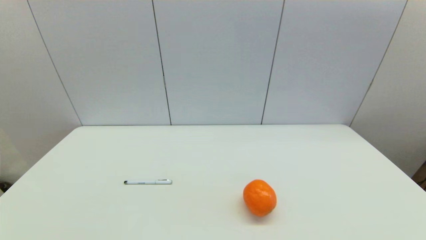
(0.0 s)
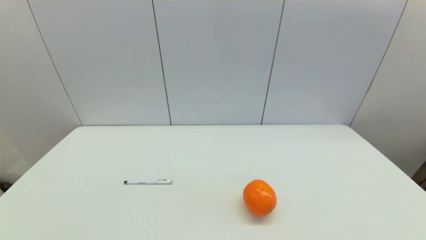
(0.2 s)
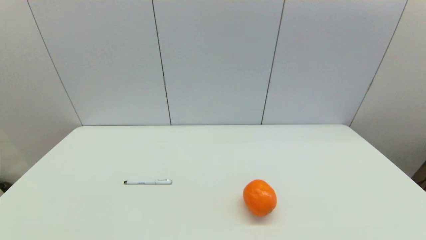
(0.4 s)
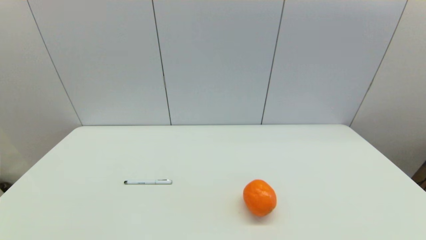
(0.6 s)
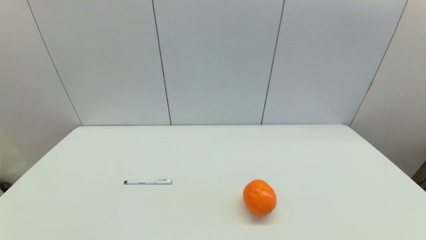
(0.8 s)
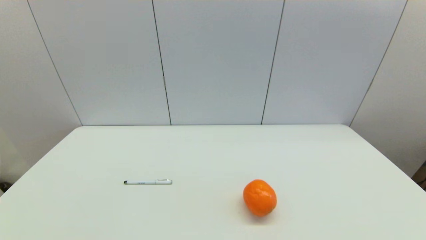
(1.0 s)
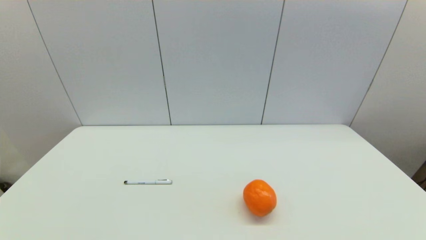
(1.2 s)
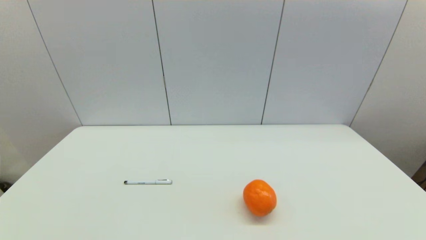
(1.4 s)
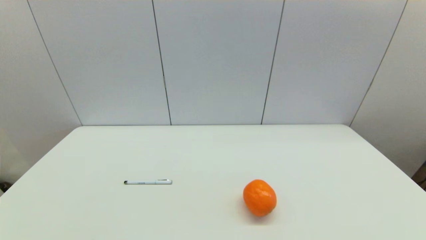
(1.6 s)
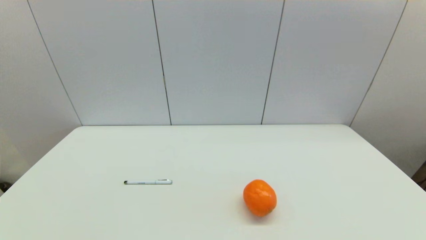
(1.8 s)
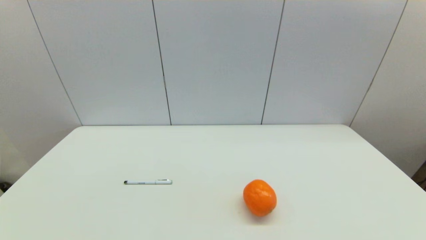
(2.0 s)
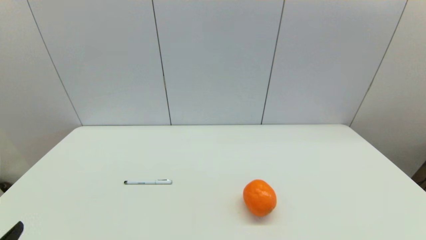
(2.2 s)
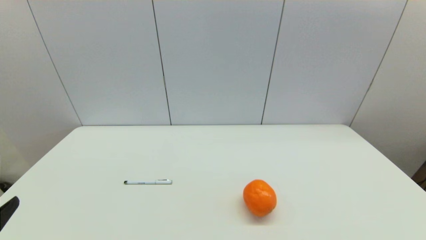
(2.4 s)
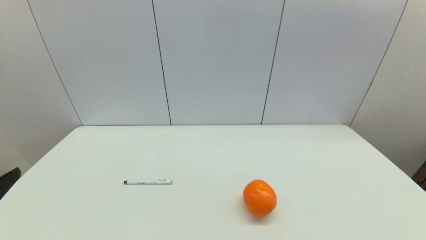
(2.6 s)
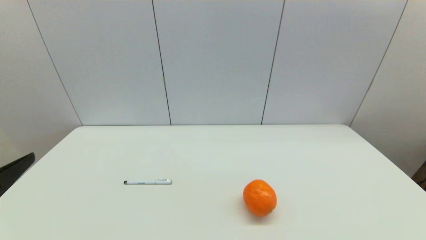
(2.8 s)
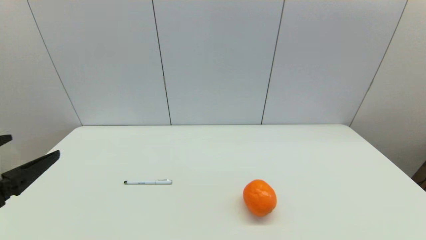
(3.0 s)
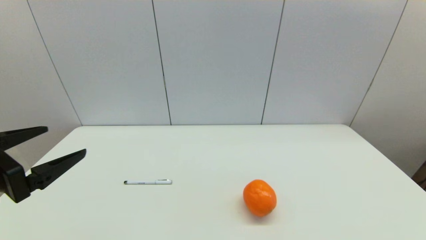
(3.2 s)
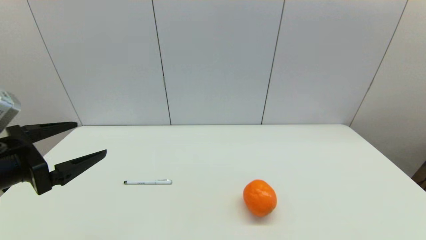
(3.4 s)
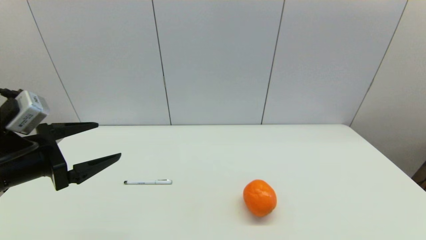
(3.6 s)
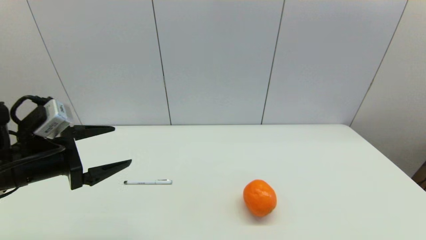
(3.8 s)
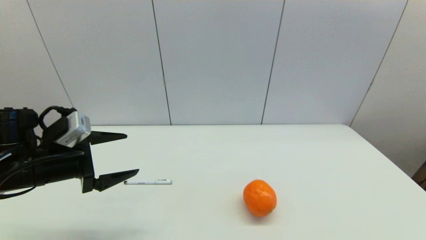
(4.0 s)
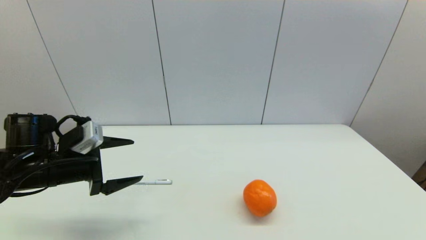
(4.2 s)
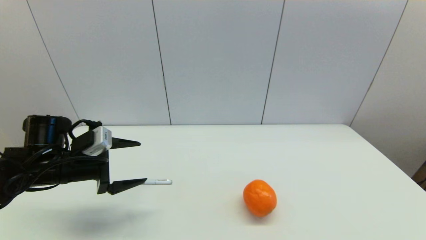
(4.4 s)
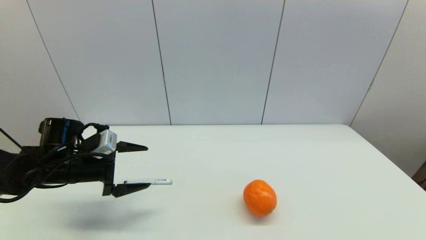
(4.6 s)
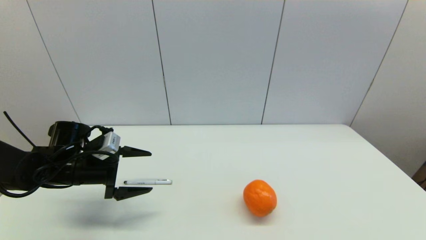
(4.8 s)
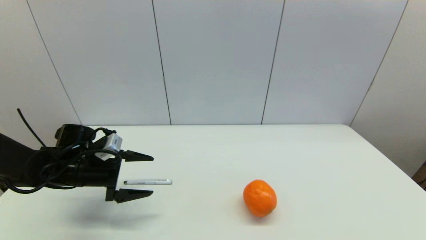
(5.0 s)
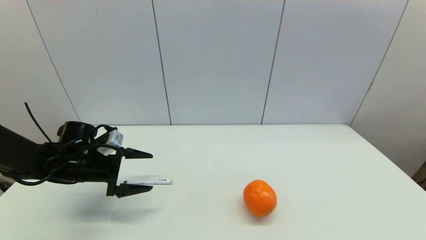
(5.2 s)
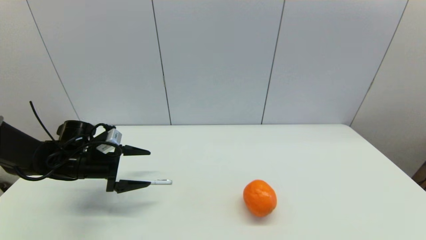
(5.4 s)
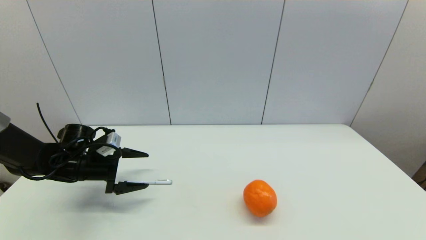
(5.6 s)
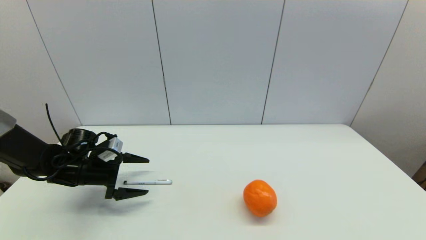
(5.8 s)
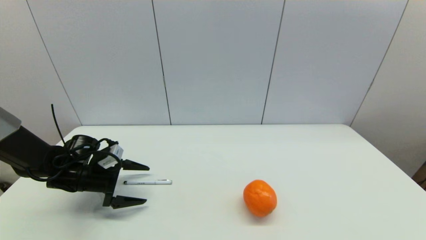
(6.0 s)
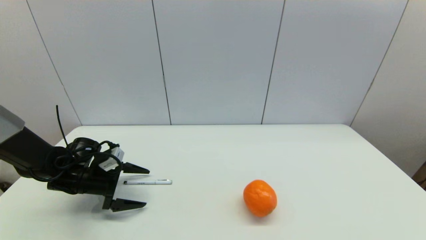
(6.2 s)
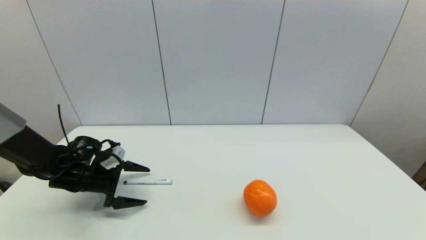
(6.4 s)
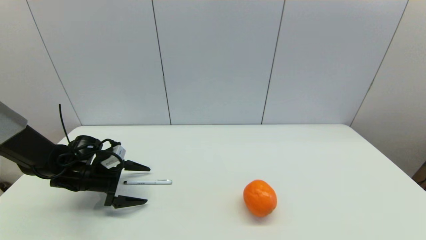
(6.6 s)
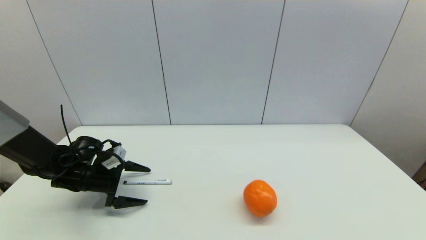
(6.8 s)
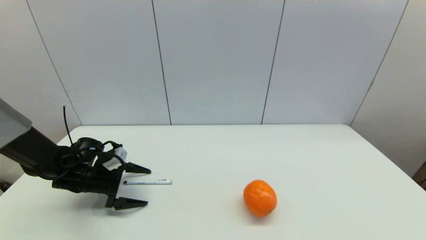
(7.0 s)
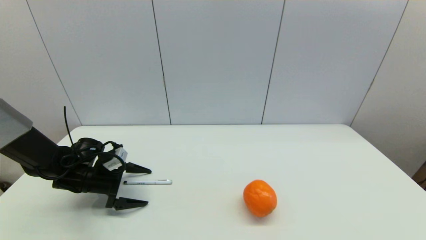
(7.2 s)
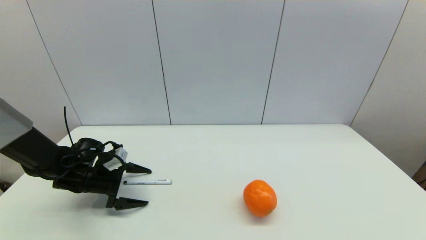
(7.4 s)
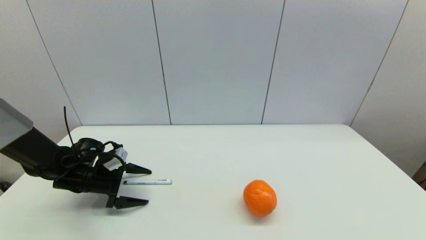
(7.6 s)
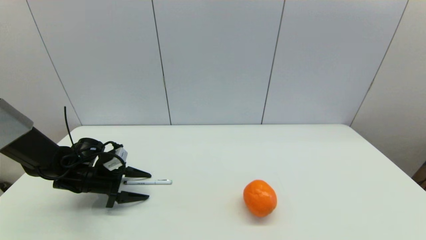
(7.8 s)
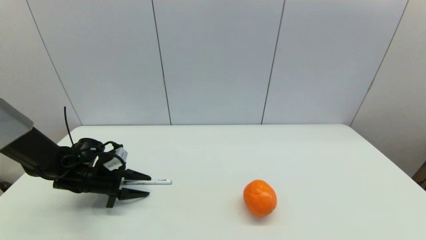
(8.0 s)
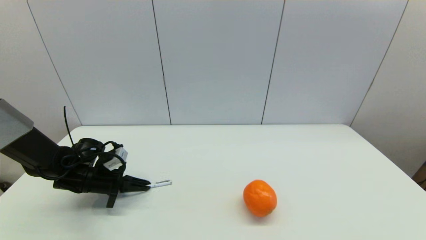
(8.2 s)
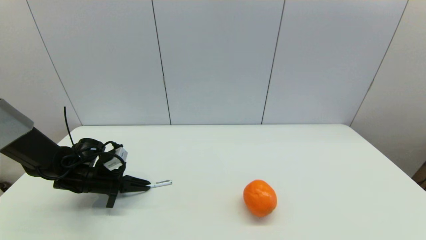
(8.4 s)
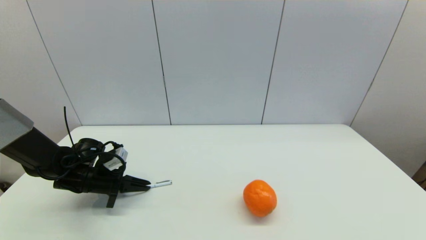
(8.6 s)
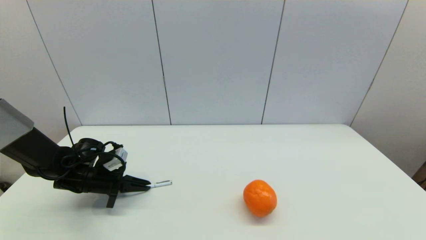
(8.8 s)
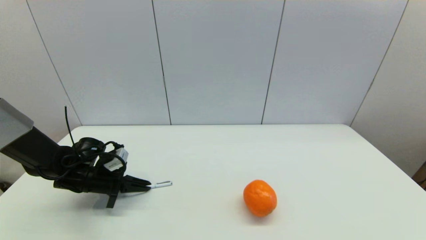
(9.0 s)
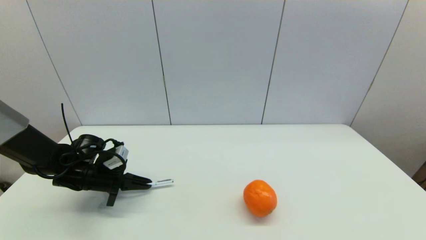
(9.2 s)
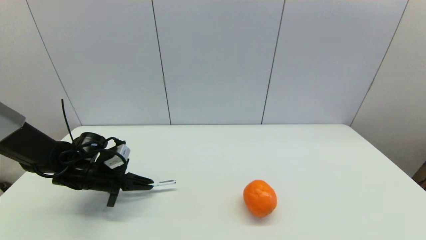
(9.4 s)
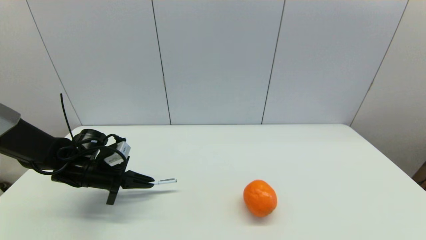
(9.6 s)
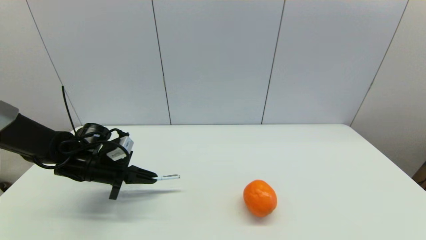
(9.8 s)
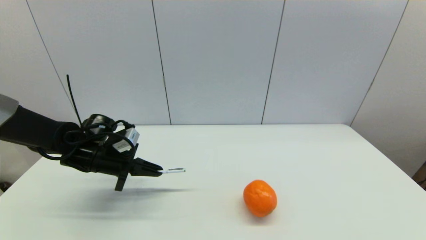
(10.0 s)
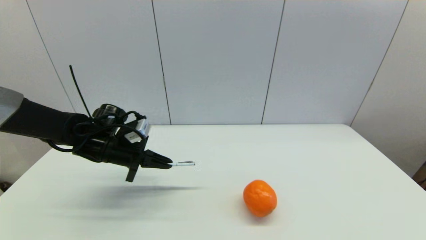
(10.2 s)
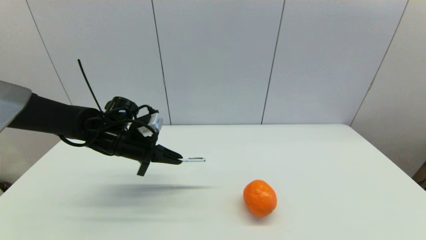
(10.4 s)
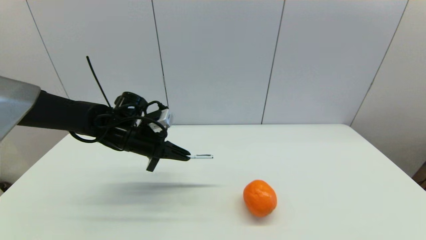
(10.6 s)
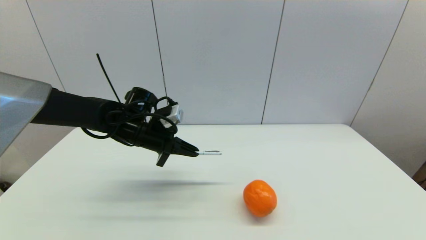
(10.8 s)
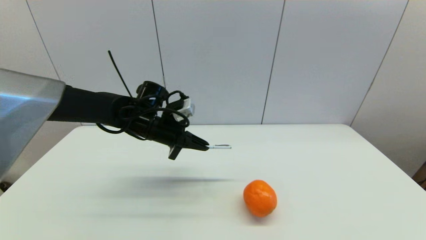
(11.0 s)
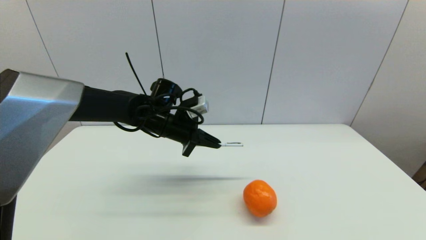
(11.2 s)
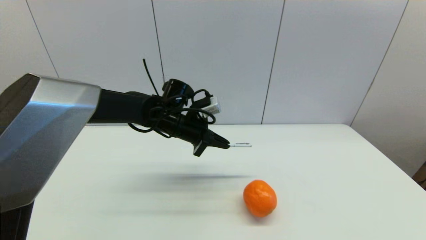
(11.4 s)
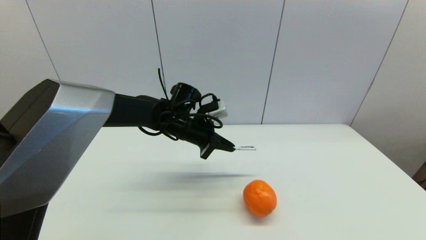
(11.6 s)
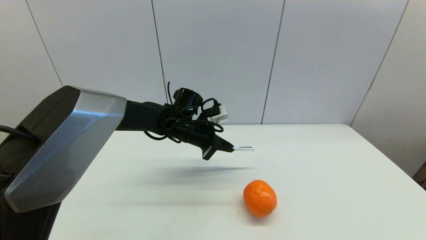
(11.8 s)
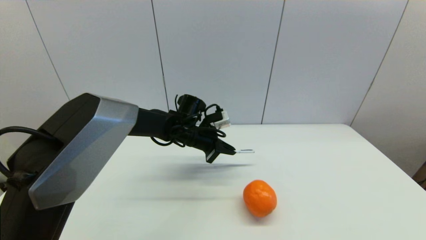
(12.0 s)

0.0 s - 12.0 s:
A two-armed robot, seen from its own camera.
Task of the whole recording: put the pen in the designated position.
Step, 2.2 s - 8.4 s: Grasp the sign pen with left gripper.
0.0 s - 1.6 s: Both grippers stay put.
1.6 s - 3.0 s: The left gripper is displaced upward and forward by about 20 cm.
3.0 s - 4.4 s: The left gripper heads forward and downward, covering some 20 cm.
4.4 s - 6.0 s: The left gripper shifts some 10 cm downward.
6.0 s - 7.6 s: There are only small adjustments of the grippers.
7.6 s - 9.0 s: The left gripper closes its fingers.
9.0 s - 10.4 s: The left gripper shifts some 15 cm to the right and upward.
10.4 s - 12.0 s: The left gripper shifts about 15 cm to the right and forward.

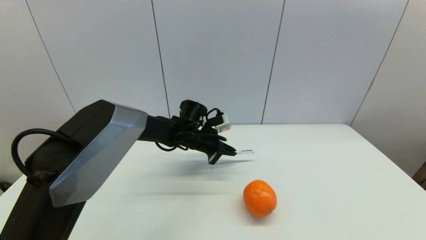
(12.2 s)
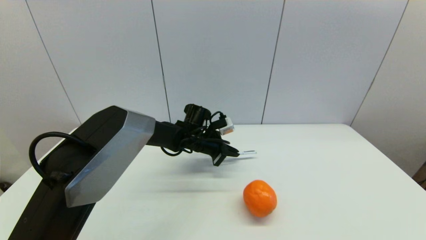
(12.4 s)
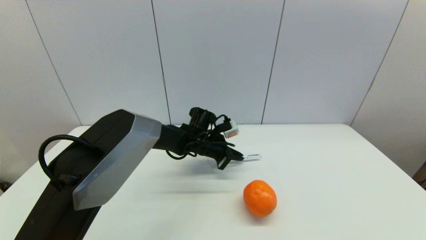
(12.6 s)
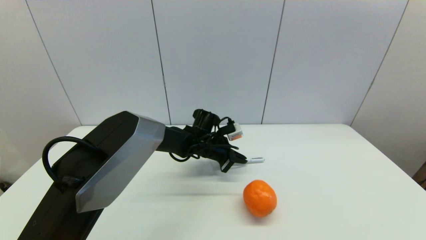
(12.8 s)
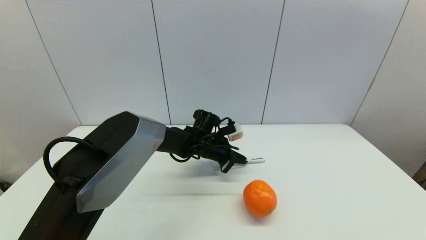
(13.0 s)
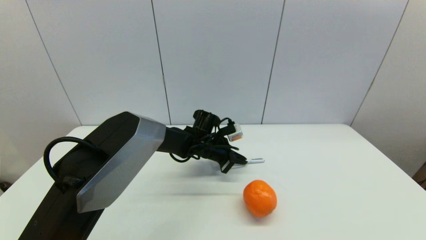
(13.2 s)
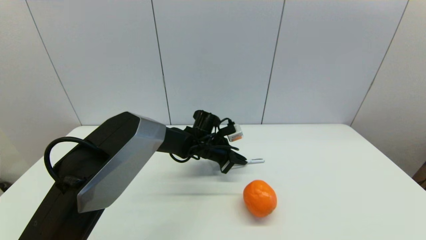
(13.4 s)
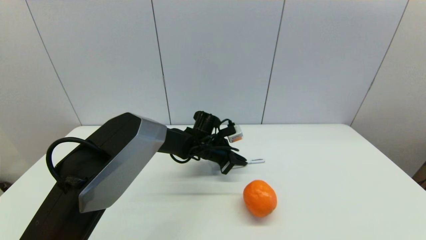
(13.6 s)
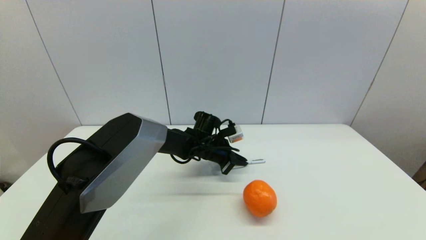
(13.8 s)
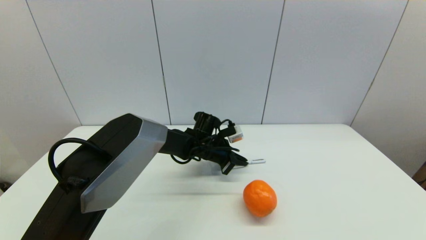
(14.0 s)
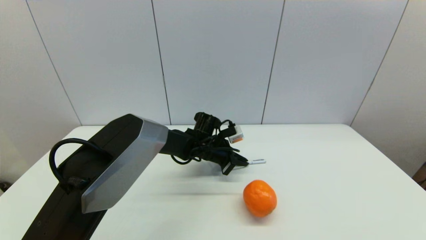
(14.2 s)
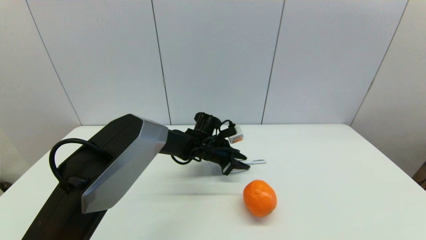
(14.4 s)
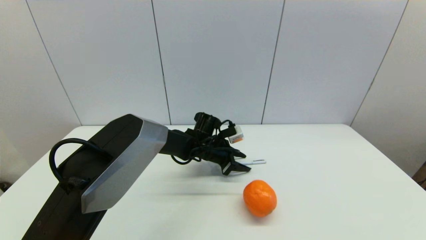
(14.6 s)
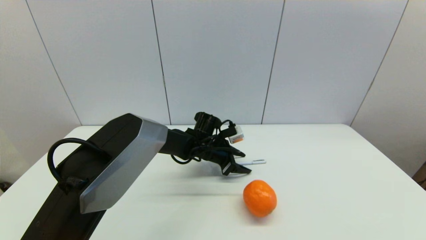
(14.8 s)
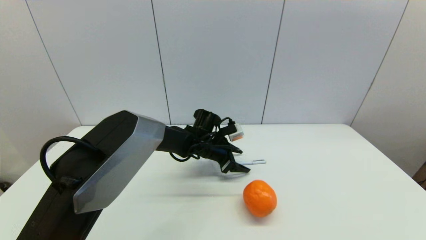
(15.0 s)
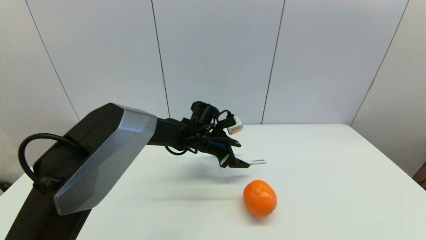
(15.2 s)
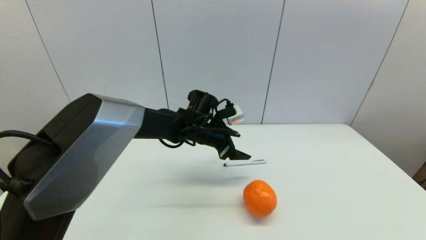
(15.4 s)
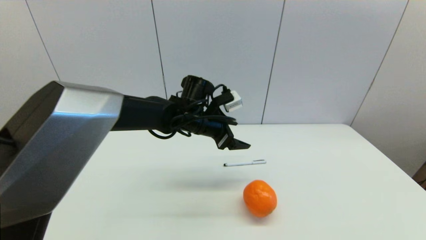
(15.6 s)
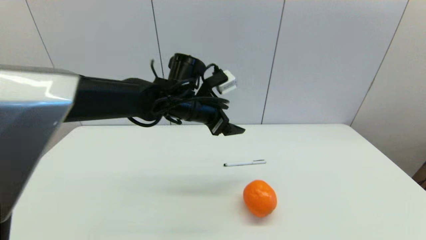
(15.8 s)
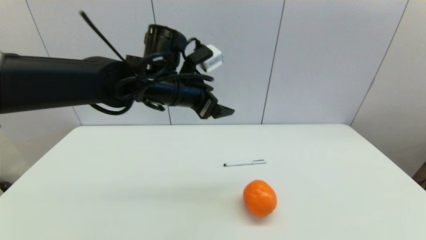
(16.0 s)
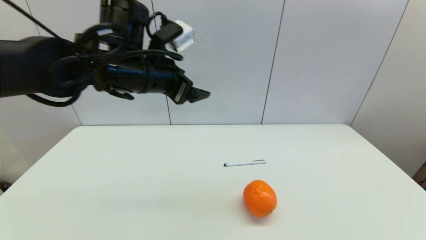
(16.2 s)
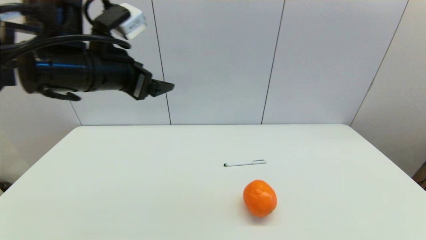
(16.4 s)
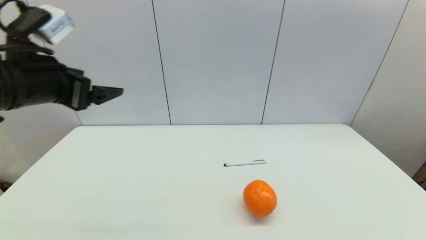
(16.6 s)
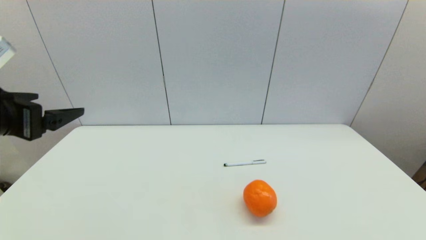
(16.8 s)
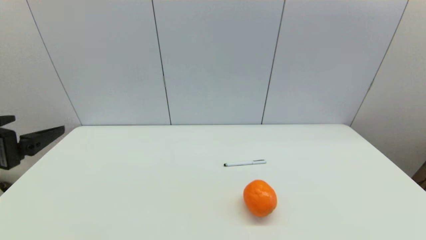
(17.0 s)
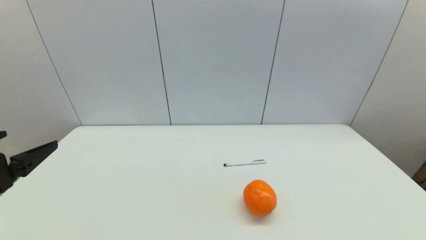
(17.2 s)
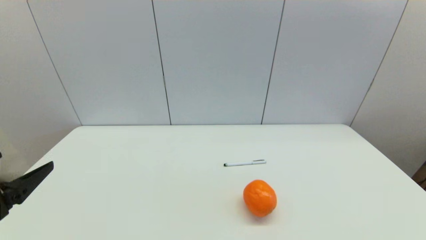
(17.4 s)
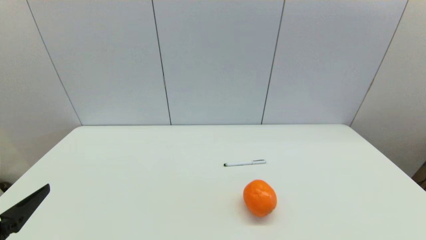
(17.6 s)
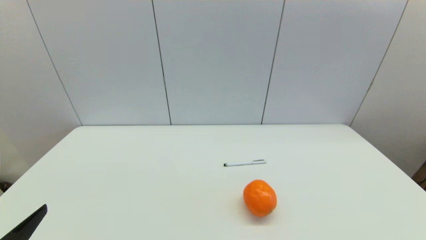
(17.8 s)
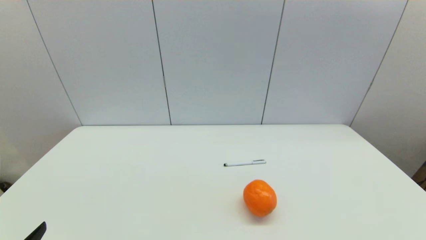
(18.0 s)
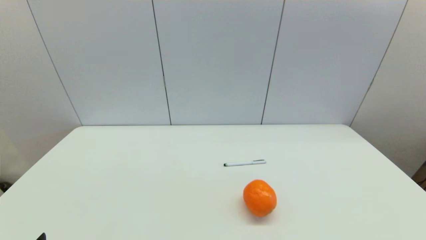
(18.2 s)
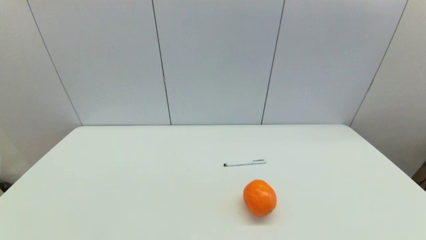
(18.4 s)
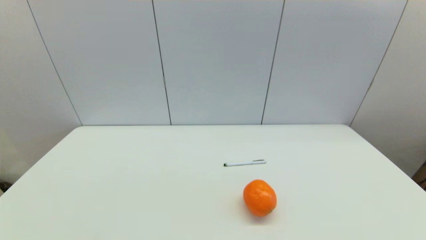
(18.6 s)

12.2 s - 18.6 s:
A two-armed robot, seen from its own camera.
Task of the whole recording: put the pen in the designated position.
Step, 12.2 s - 14.8 s: Place the sign pen on the table with left gripper.
12.2 s - 13.8 s: The grippers stay close to where they were, moving slightly.
13.8 s - 15.4 s: The left gripper heads upward, covering some 10 cm, and opens.
15.4 s - 17.0 s: The left gripper travels to the left, backward and upward by about 40 cm.
17.0 s - 18.6 s: The left gripper is displaced downward and backward by approximately 20 cm.
